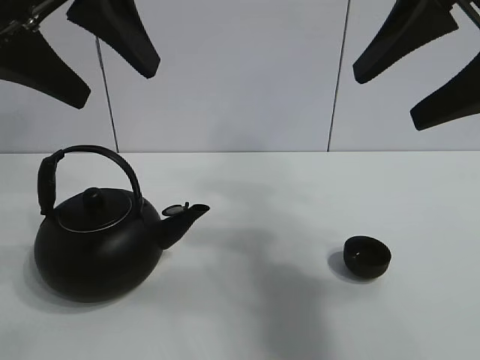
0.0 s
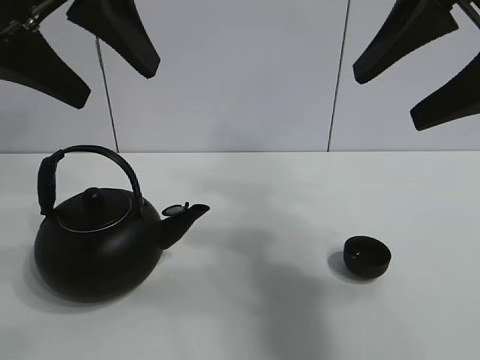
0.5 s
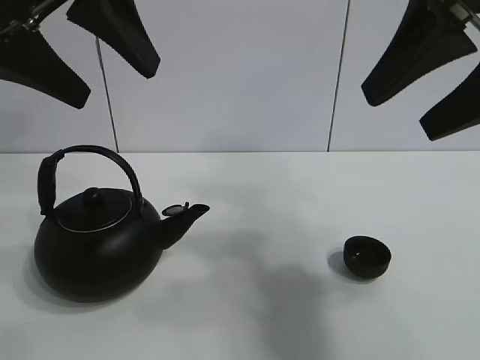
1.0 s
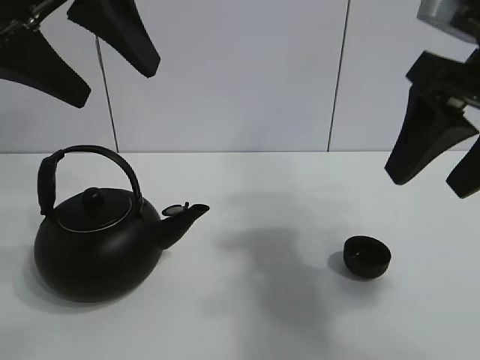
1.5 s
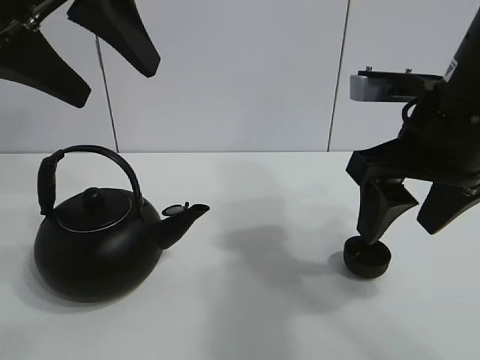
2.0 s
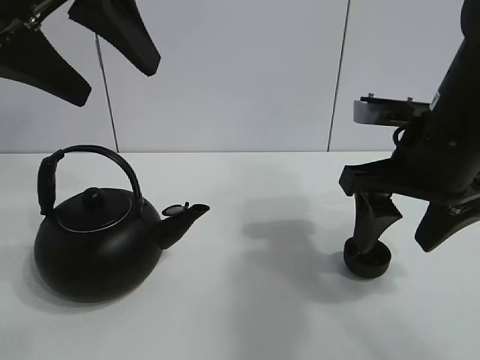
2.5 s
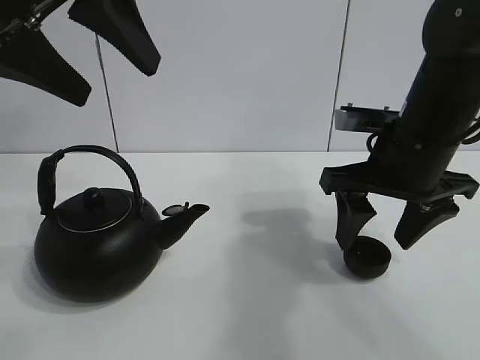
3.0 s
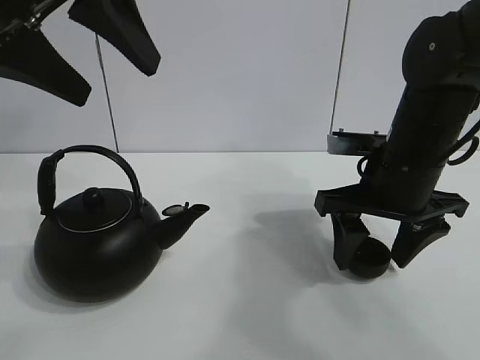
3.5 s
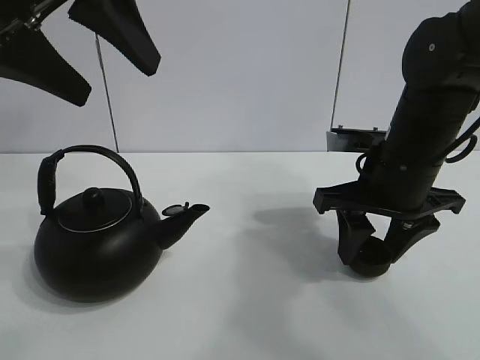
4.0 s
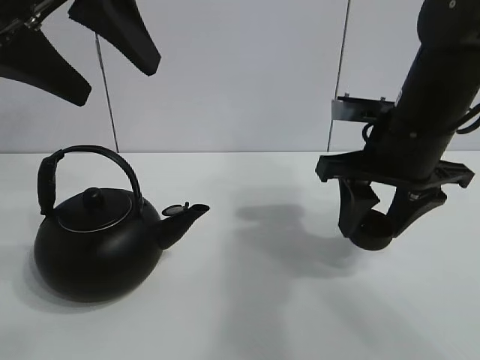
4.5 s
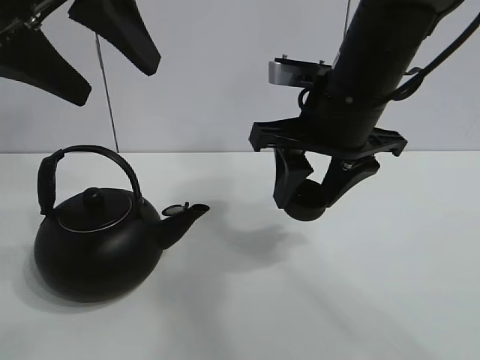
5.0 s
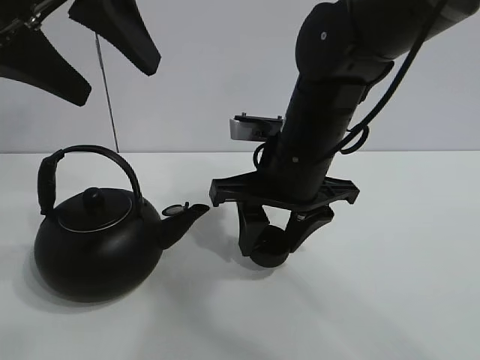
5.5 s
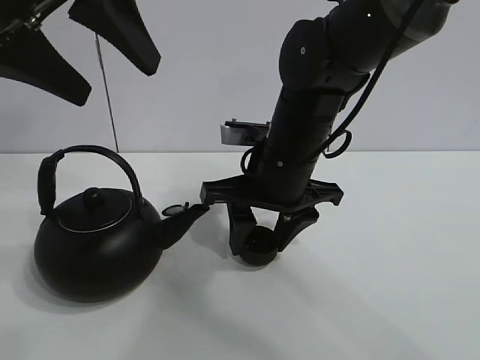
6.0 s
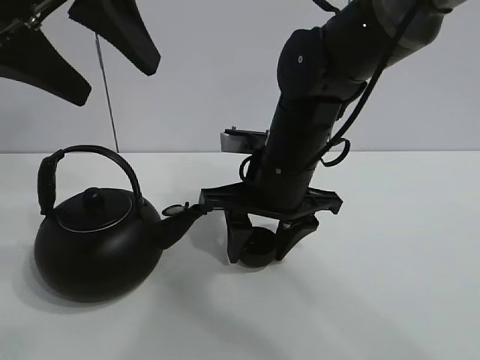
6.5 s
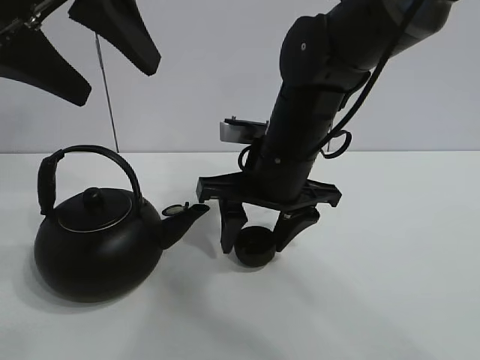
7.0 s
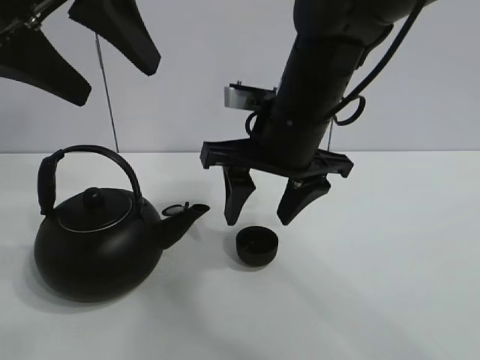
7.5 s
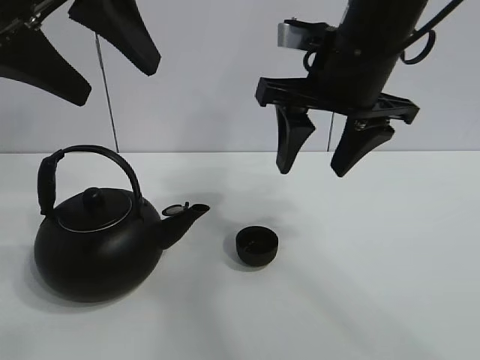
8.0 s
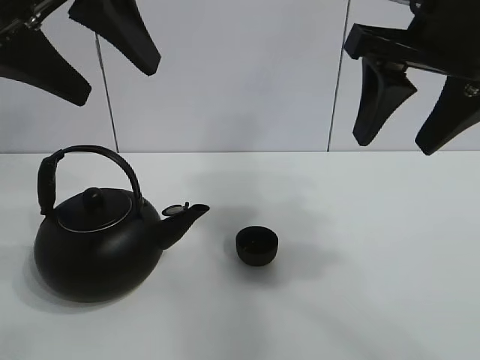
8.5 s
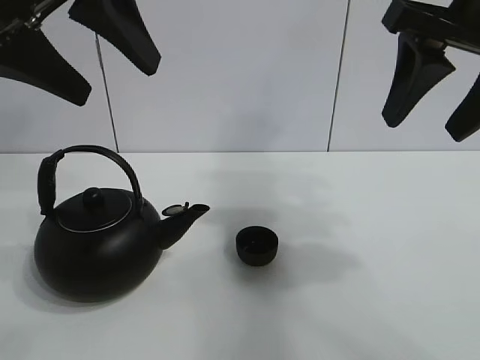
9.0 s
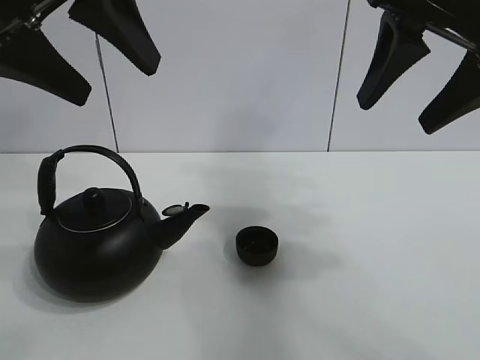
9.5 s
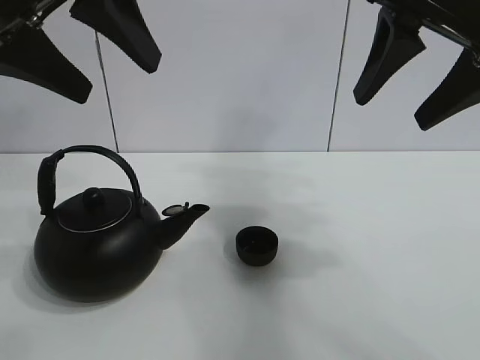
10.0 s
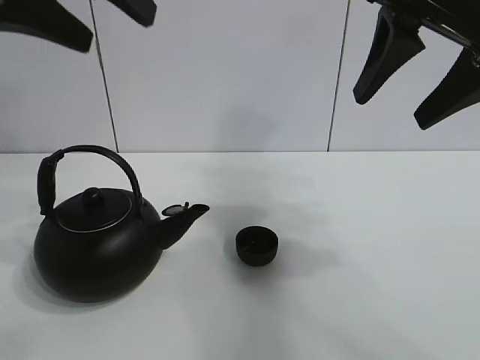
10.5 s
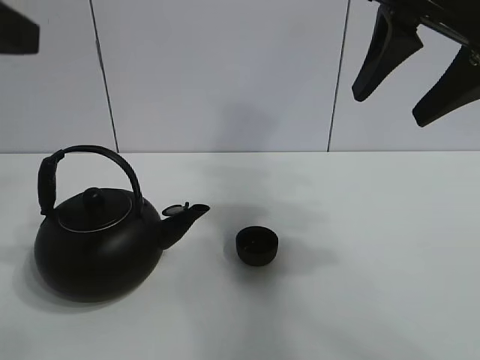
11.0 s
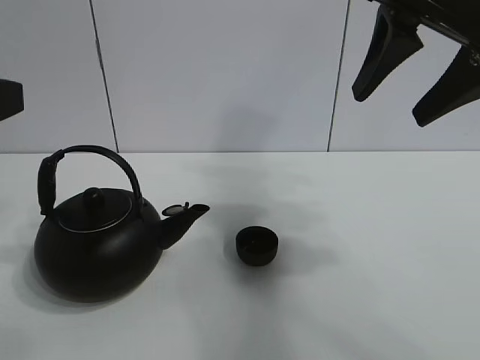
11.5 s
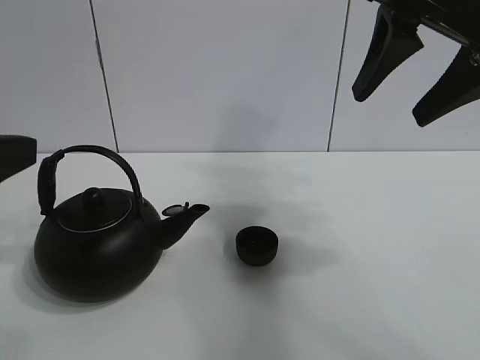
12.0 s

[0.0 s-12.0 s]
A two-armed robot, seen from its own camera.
Task of the whole recording: pour tea into the teacup.
Step, 0.0 to 4.0 s: Pick up the teacup with the right gripper.
Step, 4.5 to 7.0 s: Place the teacup in the center of view with the right gripper.
2.0 to 4.0 s: The right gripper is displaced downward and forward by roughly 10 cm, and closes up.
4.0 to 6.0 s: The right gripper moves to the left, some 10 cm.
6.0 to 8.0 s: The right gripper heads upward and to the right, covering roughly 10 cm, and opens its fingers.
8.0 to 10.0 s: The right gripper heads to the right, upward and backward, covering some 10 cm.
10.0 to 12.0 s: The left gripper heads downward, backward and to the left, covering about 15 cm.

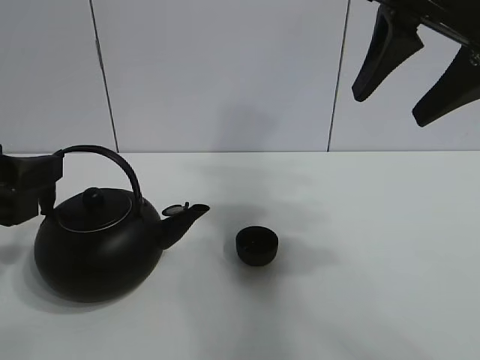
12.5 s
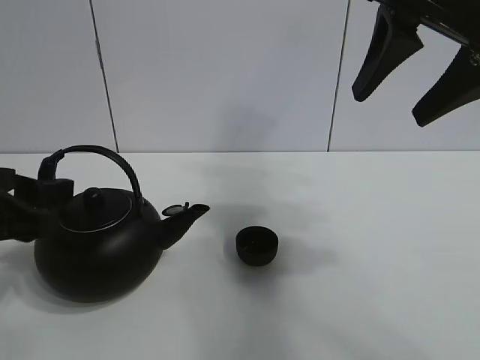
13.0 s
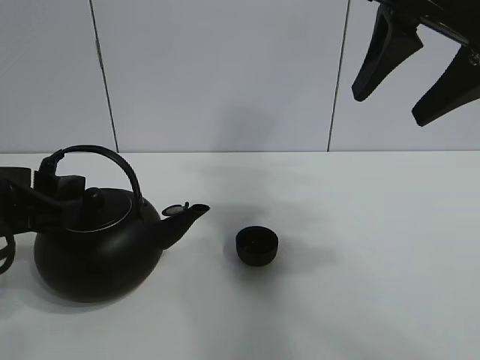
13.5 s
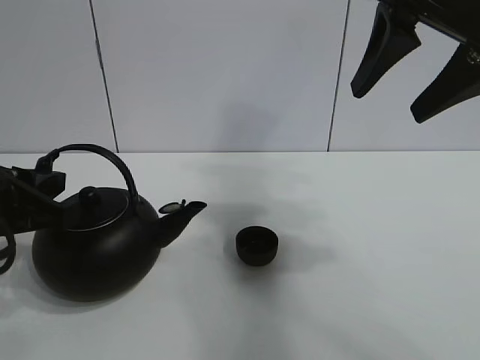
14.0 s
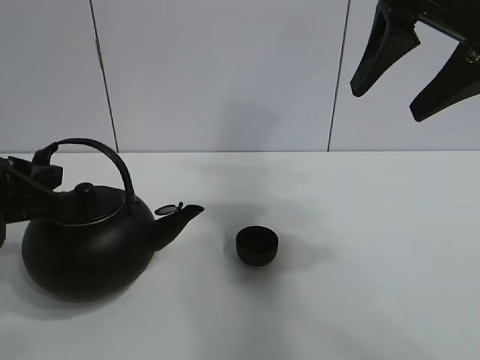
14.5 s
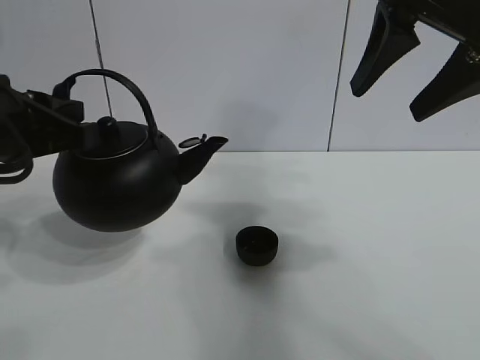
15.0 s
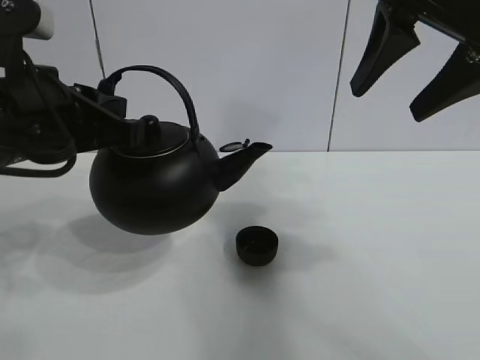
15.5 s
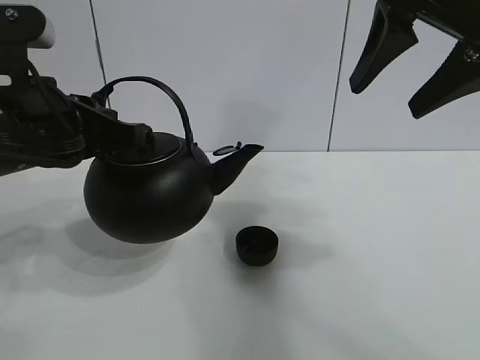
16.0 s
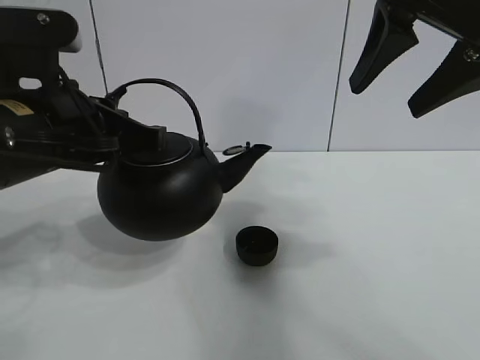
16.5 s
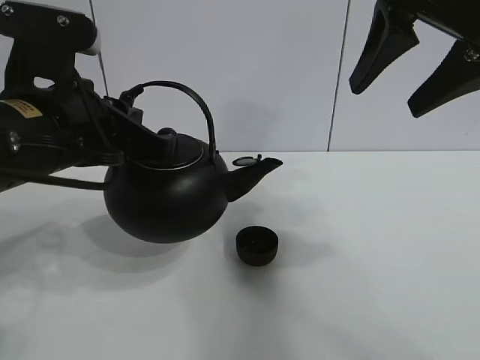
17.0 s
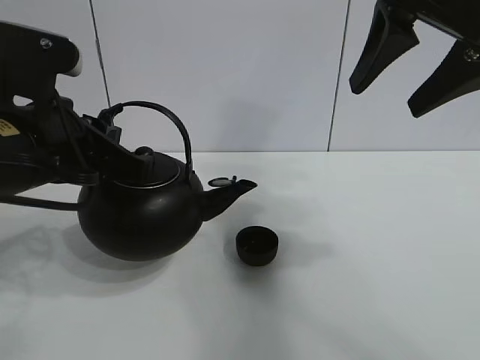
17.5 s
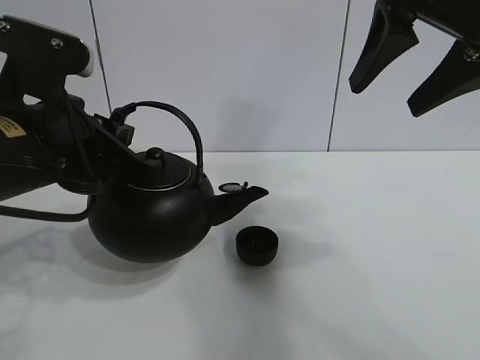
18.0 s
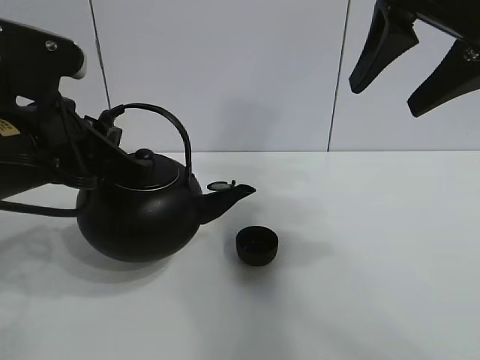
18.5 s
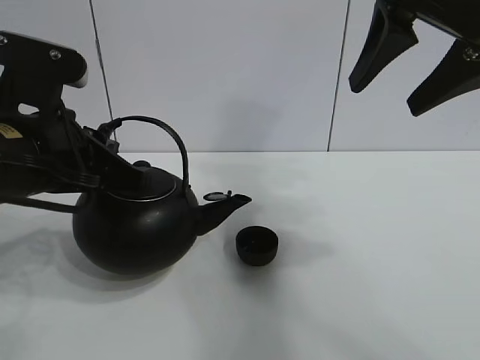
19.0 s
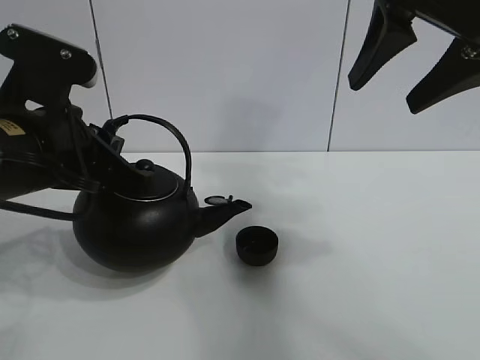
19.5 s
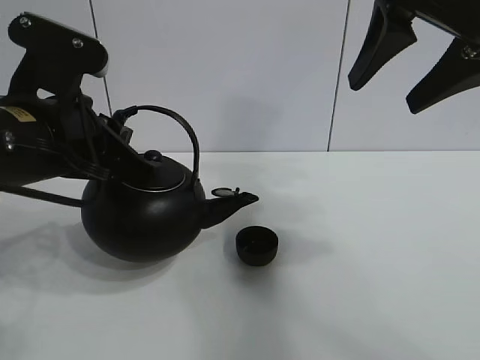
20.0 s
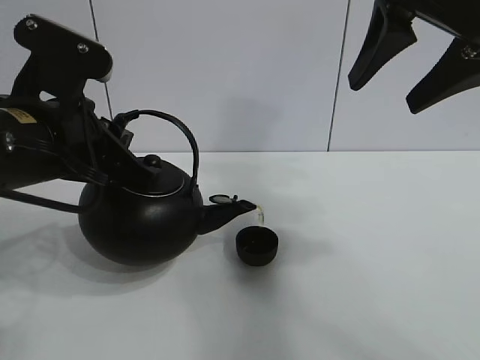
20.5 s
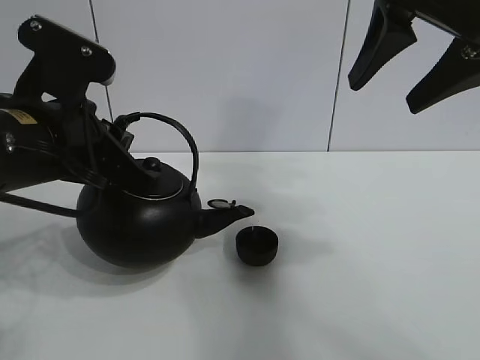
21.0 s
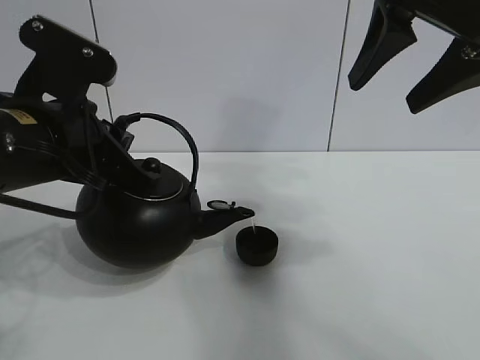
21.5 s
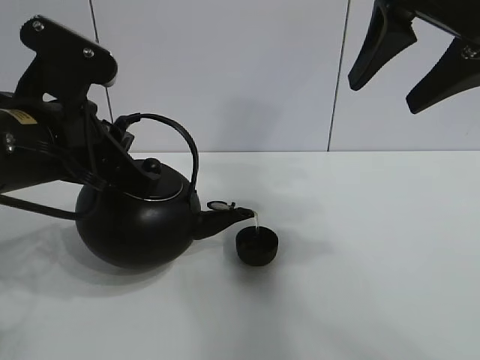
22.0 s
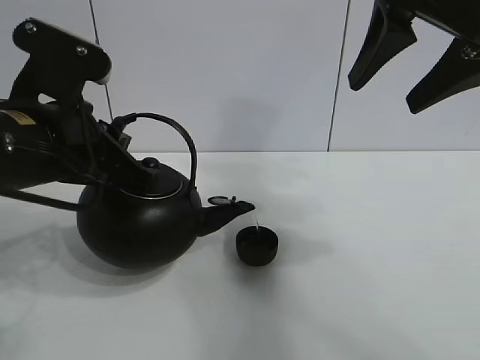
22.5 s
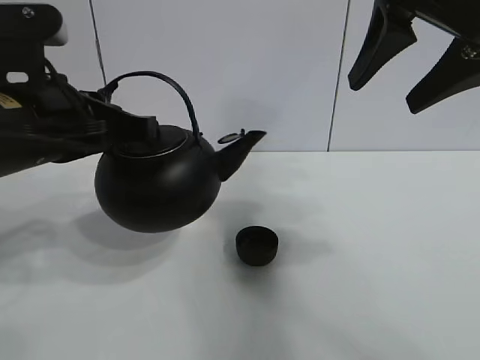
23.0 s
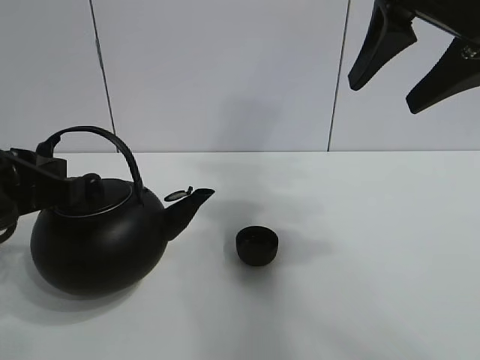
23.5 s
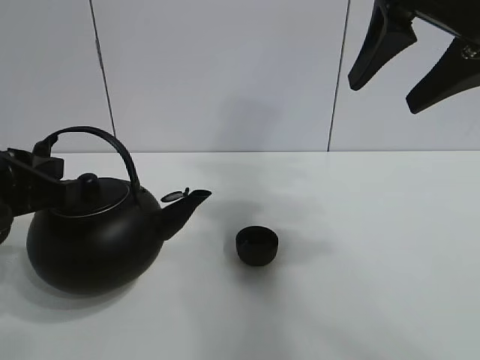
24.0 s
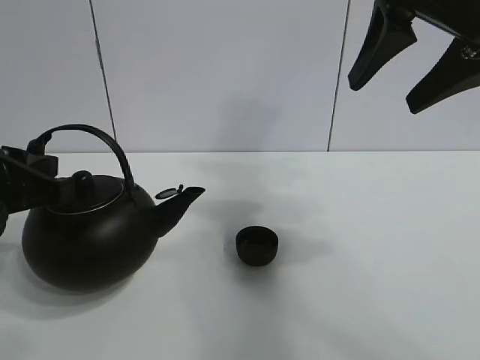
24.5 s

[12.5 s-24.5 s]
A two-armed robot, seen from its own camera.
Task of the whole recording: pour tea into the teacup.
Step, 12.5 to 14.5 s: Pick up the teapot with the left gripper.
Step, 15.0 to 22.5 s: Pour tea into the teacup with the left gripper.
12.5 to 14.5 s: The left gripper closes up.
14.5 to 16.5 s: The left gripper travels to the right by about 10 cm.
16.5 to 20.5 s: The grippers make only small movements.
20.5 to 22.5 s: Both grippers stay about where they are.
22.5 to 24.5 s: The left gripper shifts about 5 cm to the left.

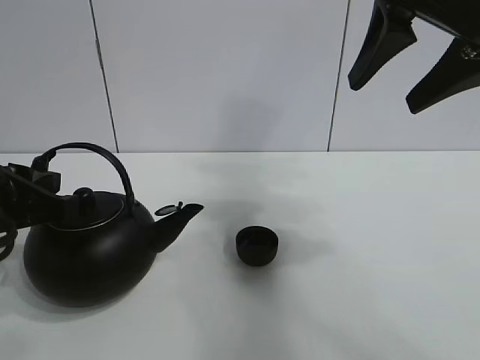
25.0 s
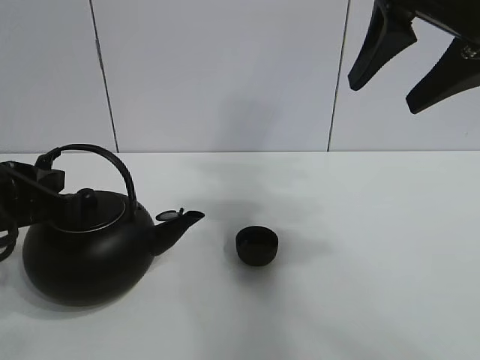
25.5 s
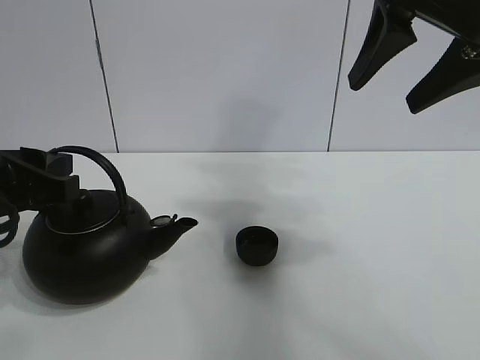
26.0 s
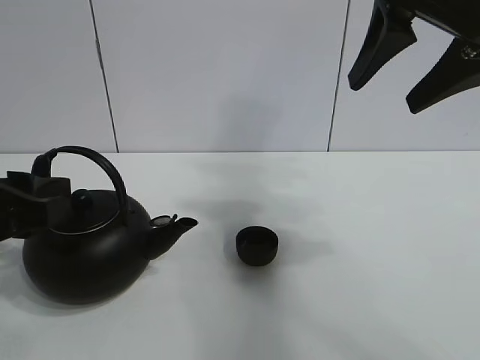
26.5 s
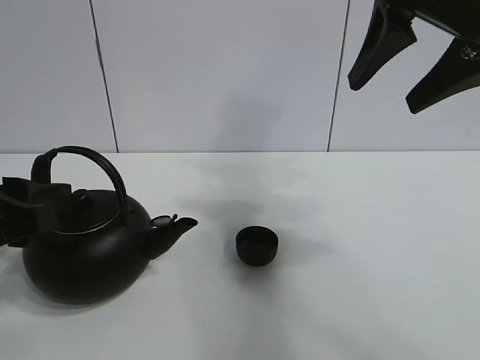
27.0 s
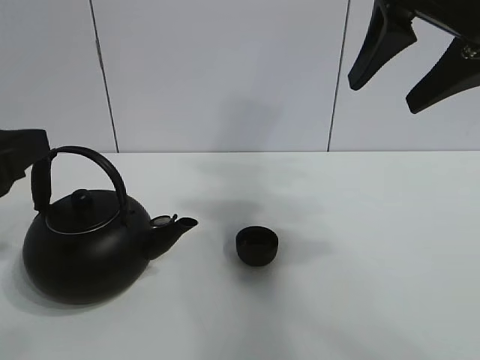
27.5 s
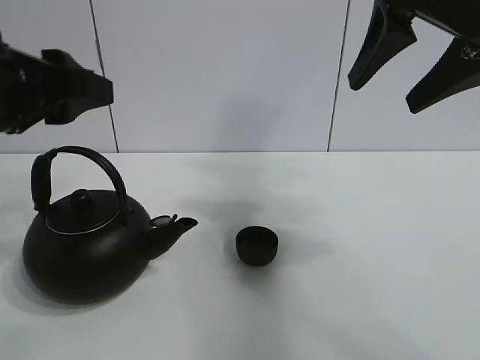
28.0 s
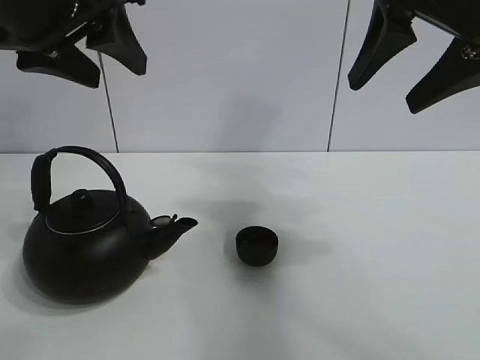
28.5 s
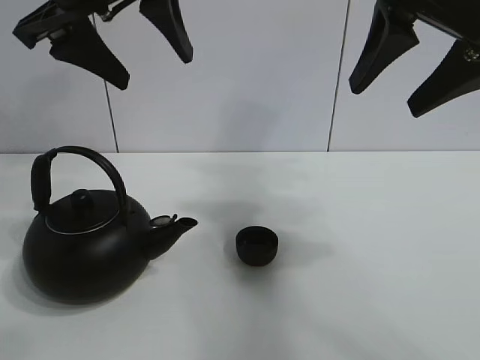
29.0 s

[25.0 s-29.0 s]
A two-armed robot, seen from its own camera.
Task of the whole recording: pour tea into the teacup.
25.0 to 27.0 s: The left gripper opens its fingers.
27.0 to 29.0 s: The left gripper shifts about 25 cm upward, forward and to the right.
